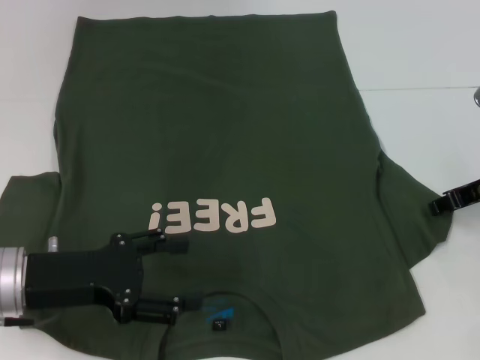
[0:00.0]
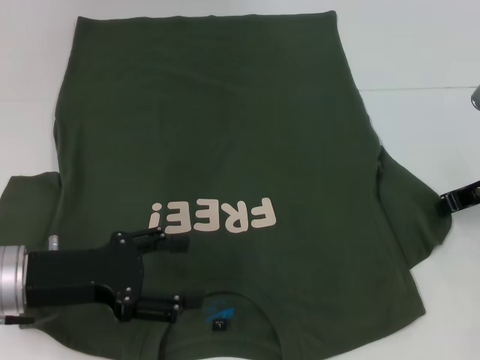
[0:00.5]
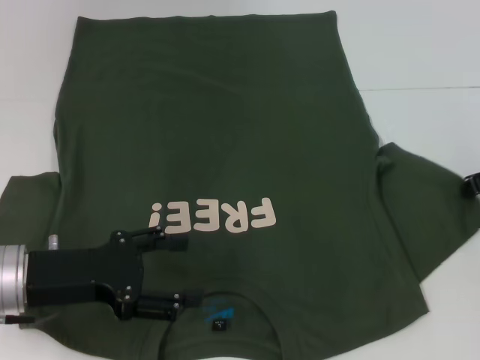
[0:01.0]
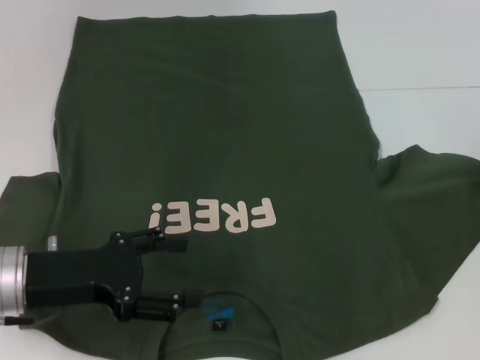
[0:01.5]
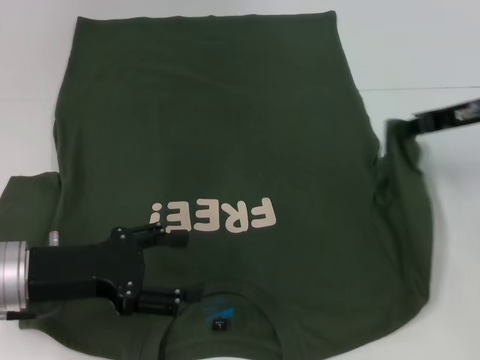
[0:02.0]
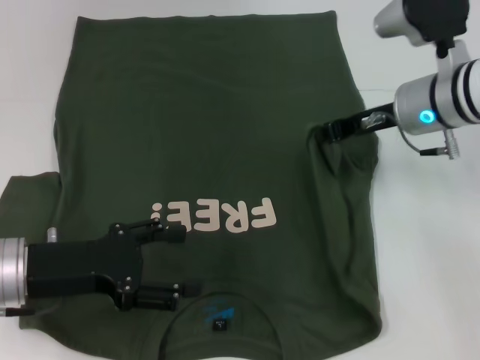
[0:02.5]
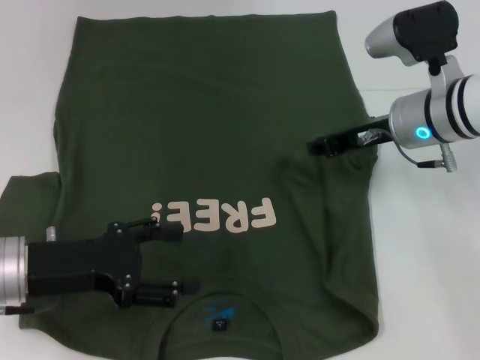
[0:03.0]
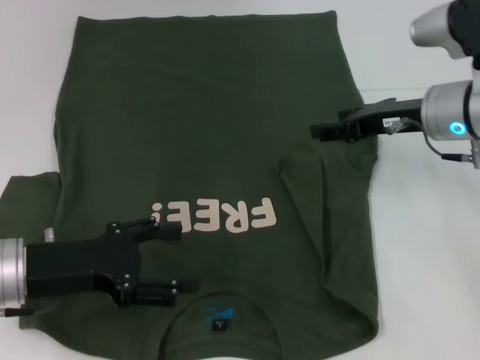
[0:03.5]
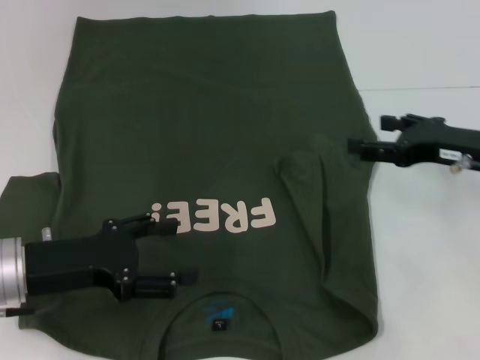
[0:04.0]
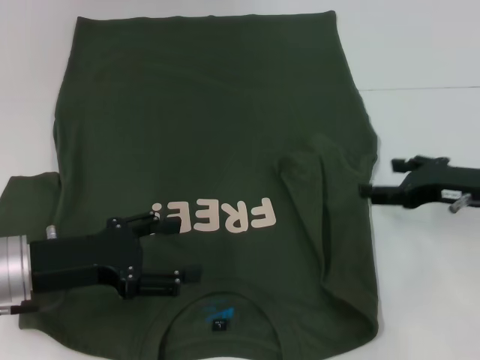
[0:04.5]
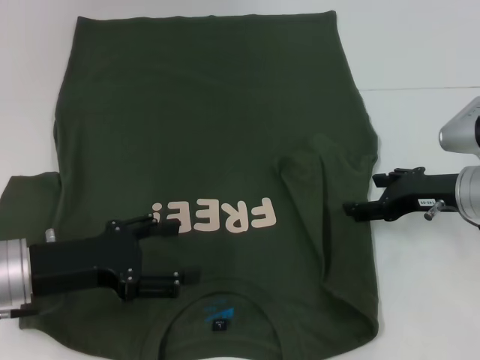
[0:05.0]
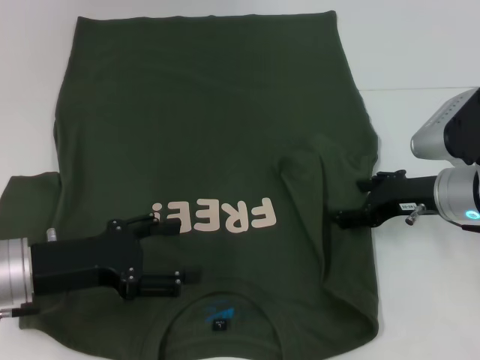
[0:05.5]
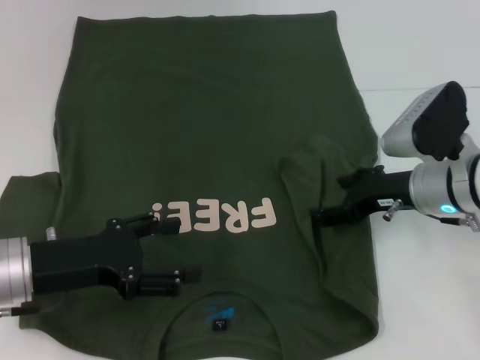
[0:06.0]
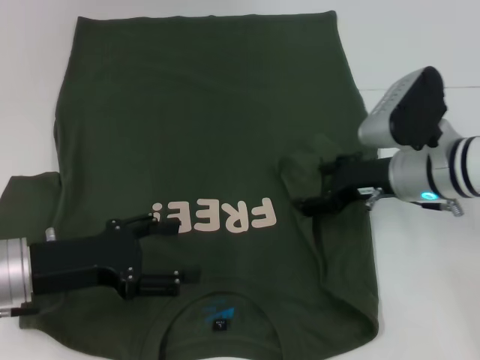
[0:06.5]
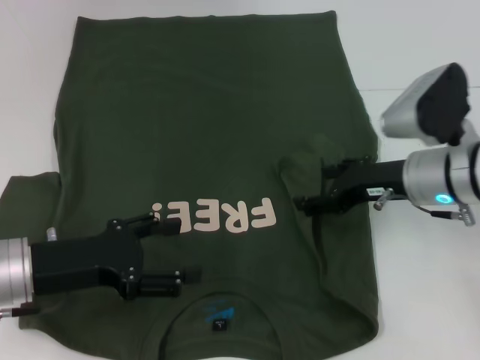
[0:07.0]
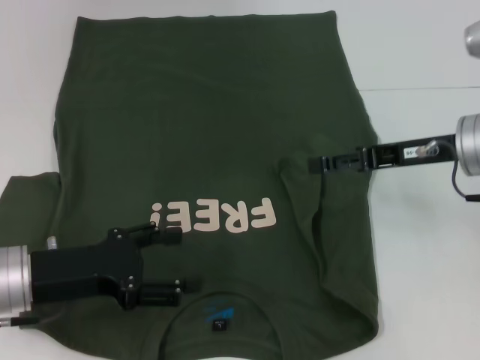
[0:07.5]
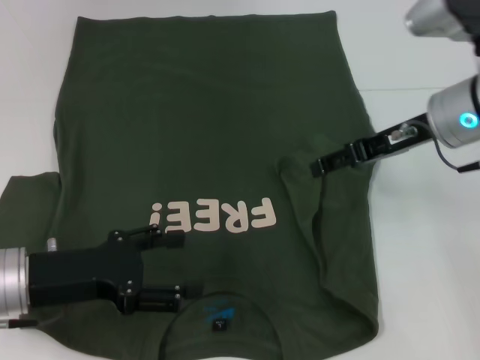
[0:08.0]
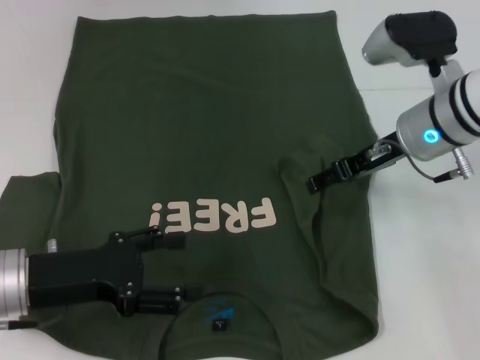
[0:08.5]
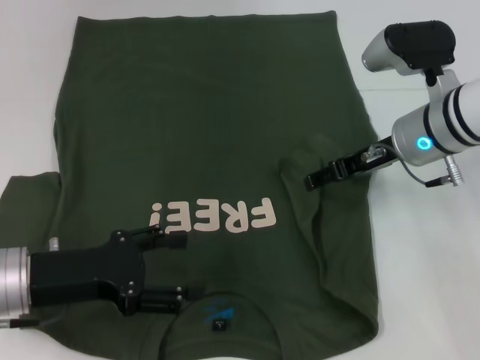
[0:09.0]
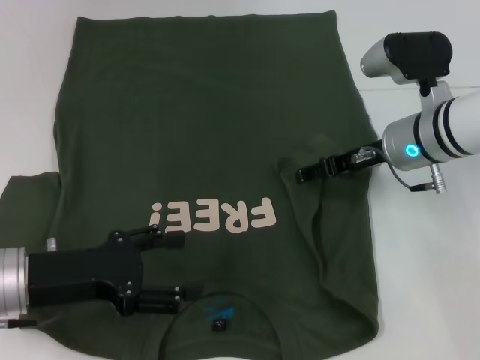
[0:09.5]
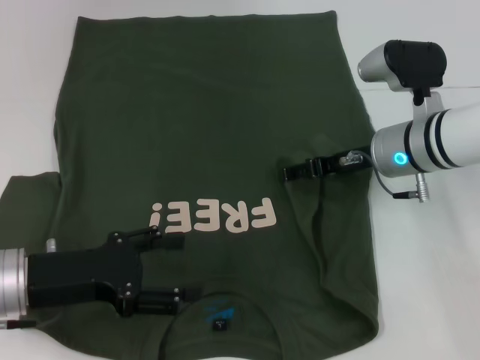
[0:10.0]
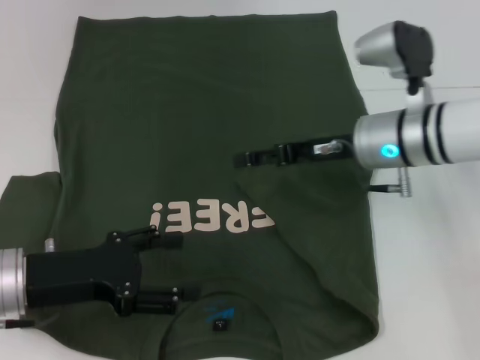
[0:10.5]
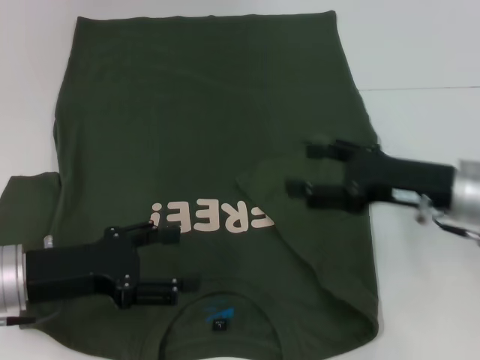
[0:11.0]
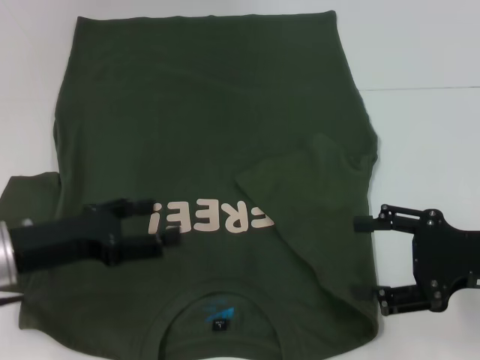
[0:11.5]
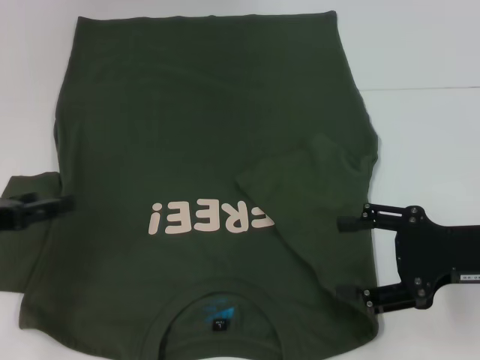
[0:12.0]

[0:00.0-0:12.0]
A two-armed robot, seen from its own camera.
Step, 0:00.0 to 0:10.5: Fold the bottom right sleeve with your right hand.
0:00.0 to 0:02.0: The right gripper is displaced upward by some 5 cm, and closes up.
0:02.0 to 0:04.0: The right gripper shifts roughly 10 cm backward and downward, goes to the left and returns, about 10 cm each way, and opens up.
0:04.0 to 0:06.0: The right gripper shifts about 5 cm to the left.
0:06.0 to 0:08.0: The right gripper moves upward, about 10 cm.
0:08.0 to 0:10.0: The right gripper moves downward, roughly 10 cm.
0:10.0 to 0:12.0: The right gripper goes about 15 cm backward and to the right, while the left gripper goes approximately 10 cm to the left.

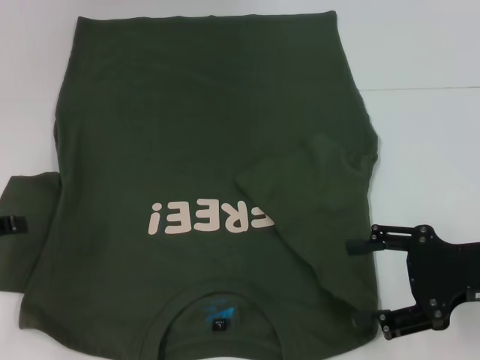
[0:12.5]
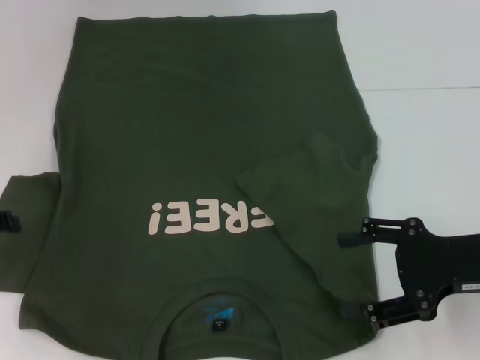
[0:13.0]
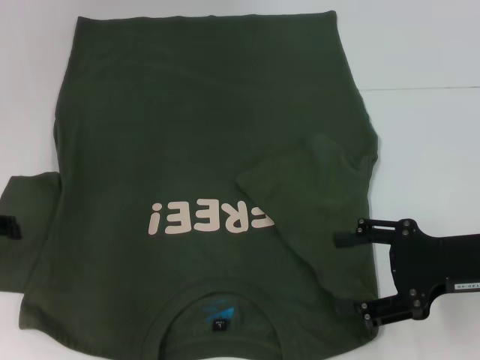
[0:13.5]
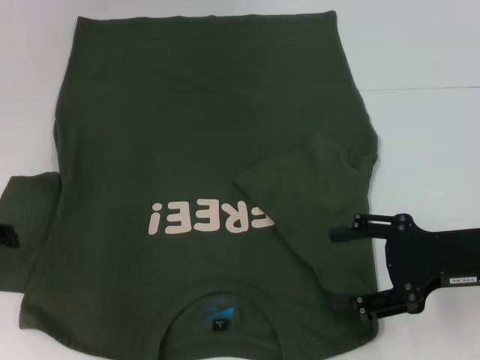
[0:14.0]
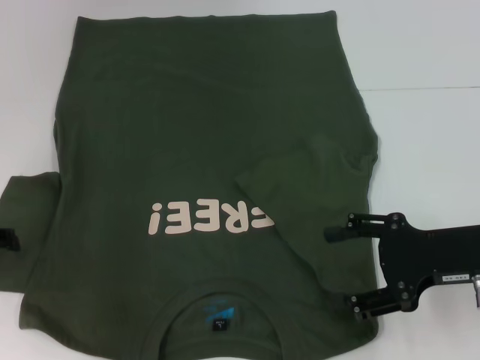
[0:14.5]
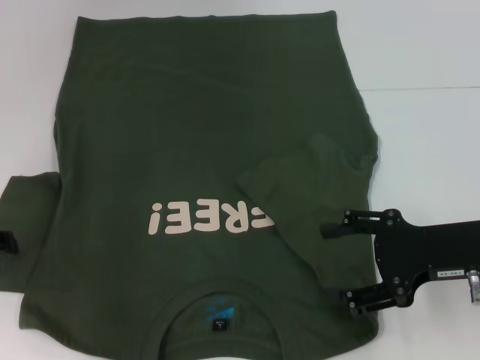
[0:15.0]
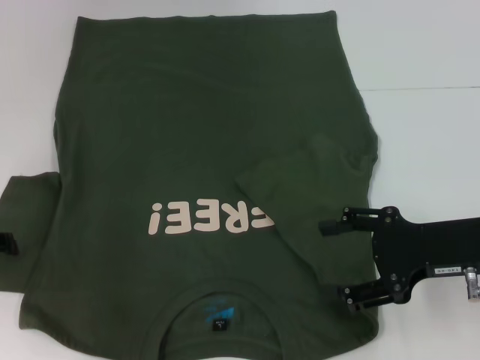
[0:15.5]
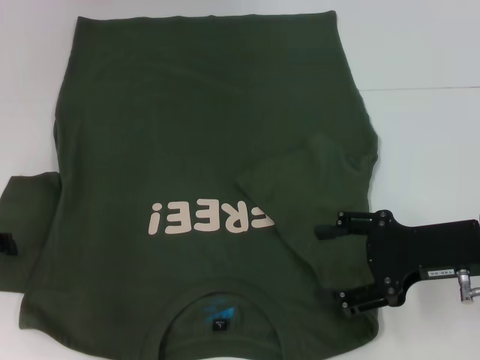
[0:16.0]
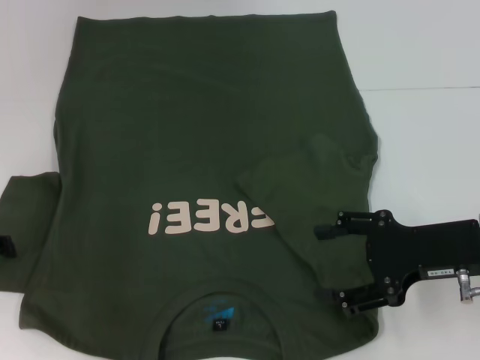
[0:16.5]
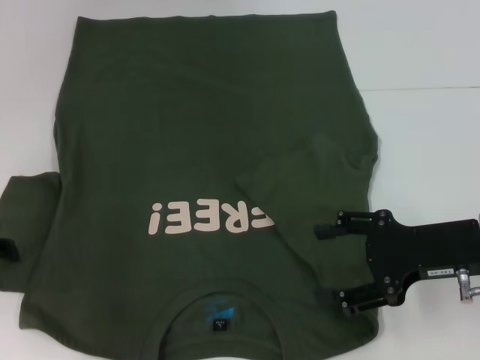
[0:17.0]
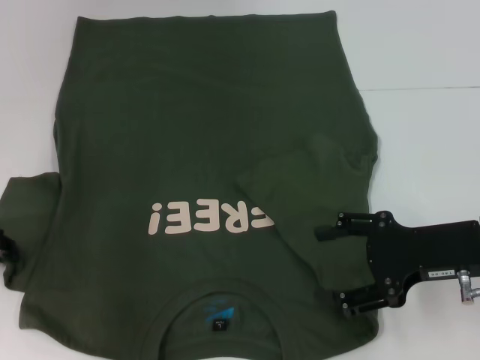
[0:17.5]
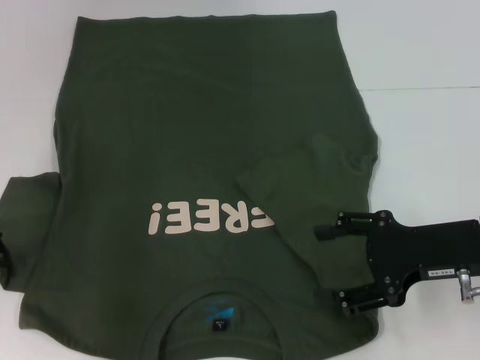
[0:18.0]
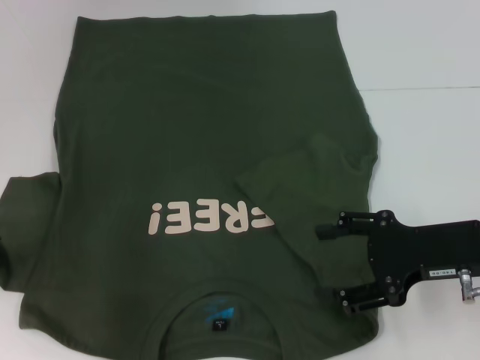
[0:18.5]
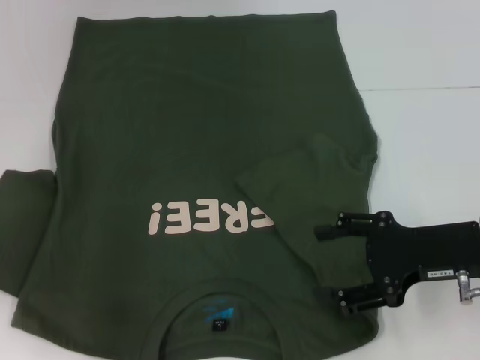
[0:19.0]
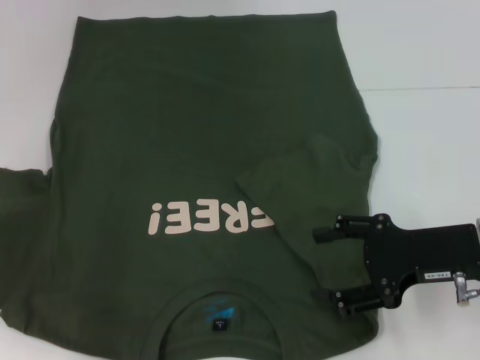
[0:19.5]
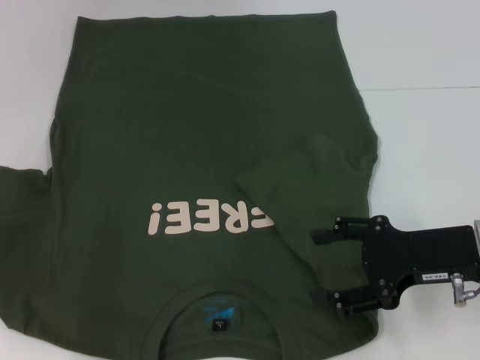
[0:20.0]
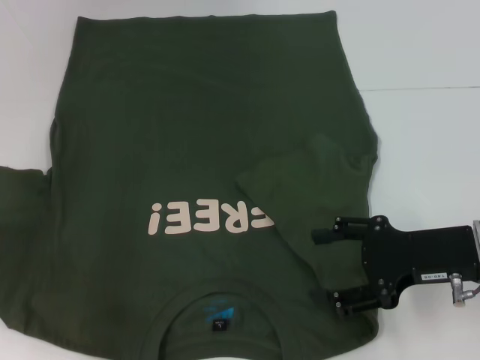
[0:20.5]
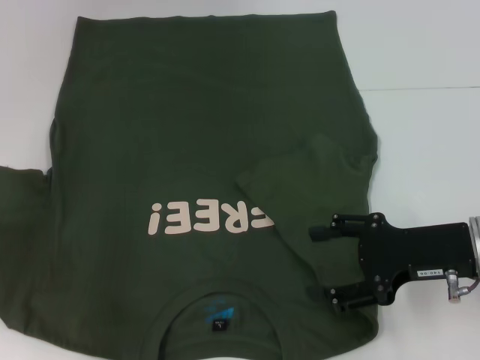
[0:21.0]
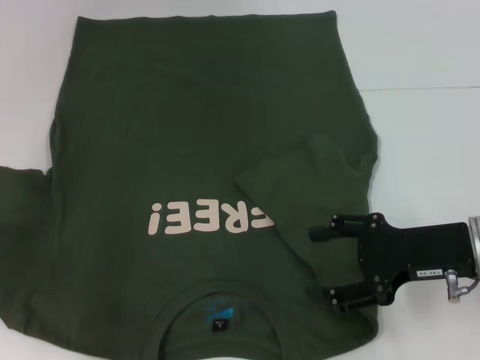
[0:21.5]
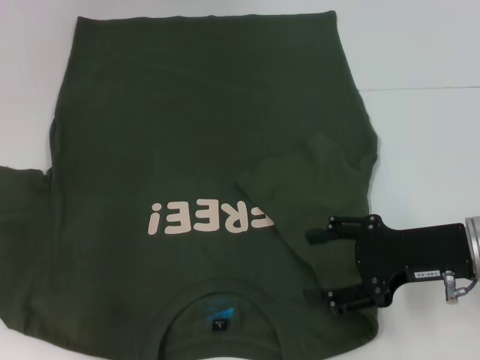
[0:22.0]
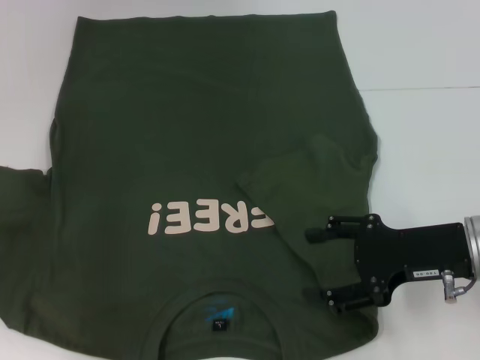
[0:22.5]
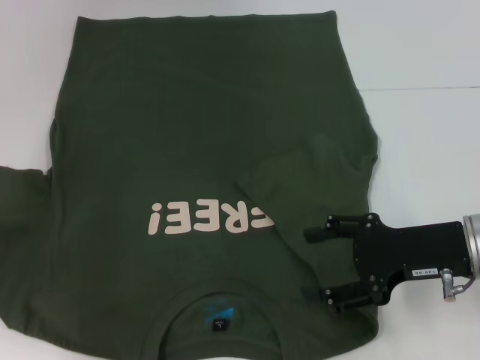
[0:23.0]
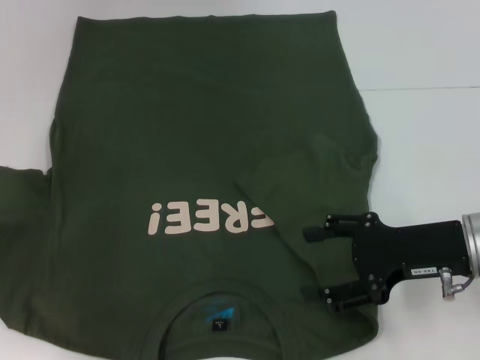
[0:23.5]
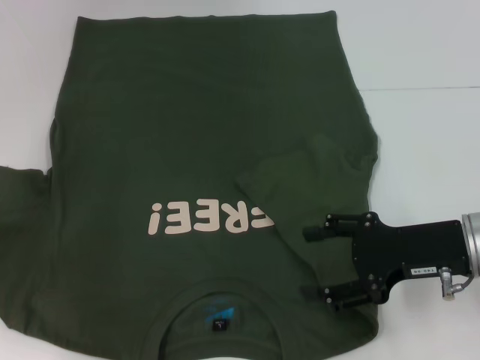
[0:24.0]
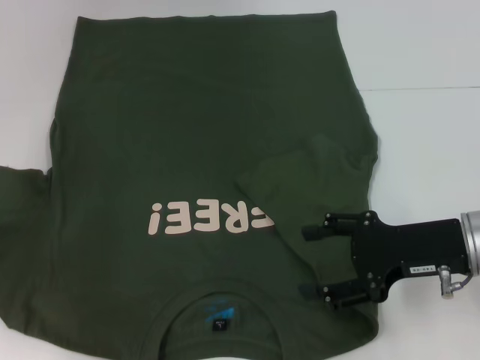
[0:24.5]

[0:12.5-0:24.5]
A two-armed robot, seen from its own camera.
0:14.5 to 0:16.5: Both grippers stay put.
0:18.5 to 0:20.5: The grippers make only small movements.

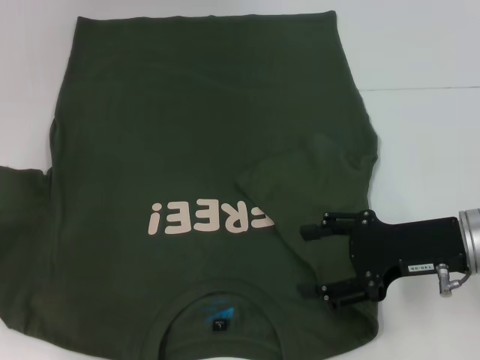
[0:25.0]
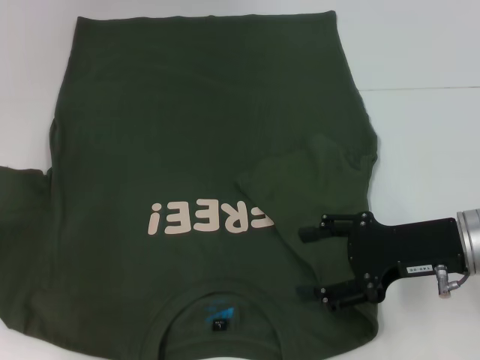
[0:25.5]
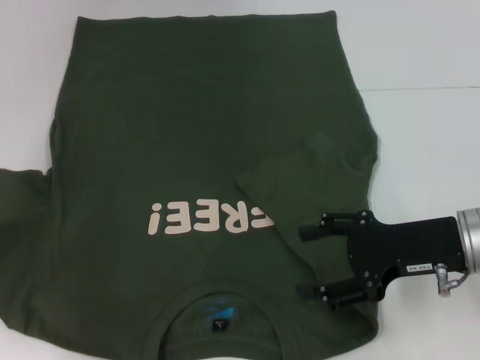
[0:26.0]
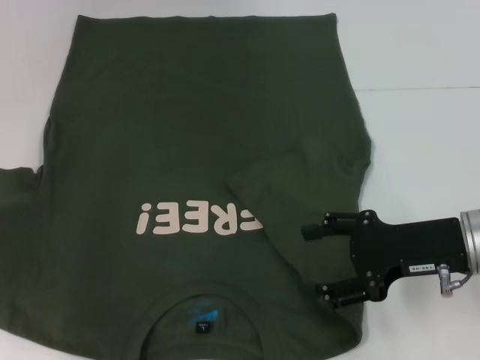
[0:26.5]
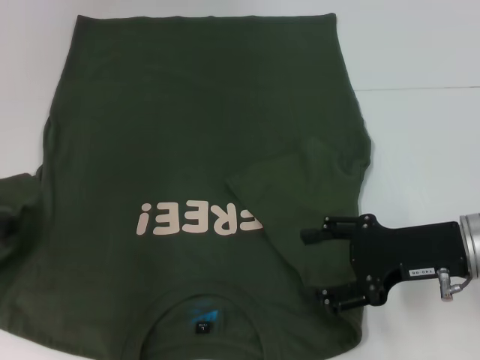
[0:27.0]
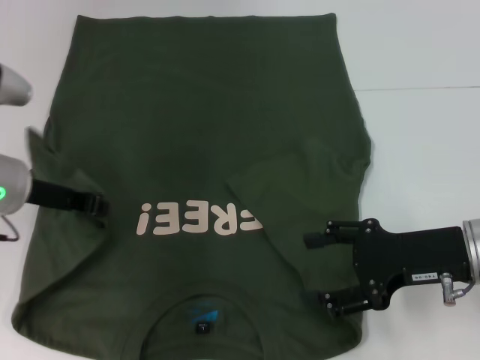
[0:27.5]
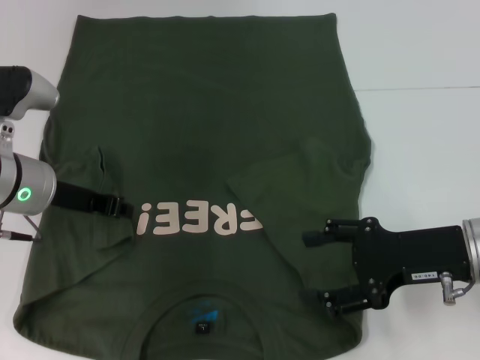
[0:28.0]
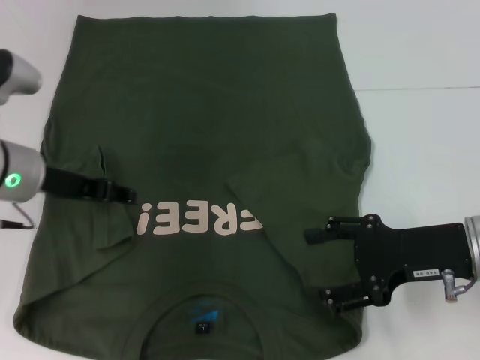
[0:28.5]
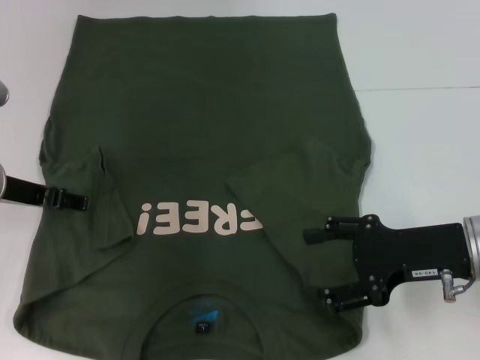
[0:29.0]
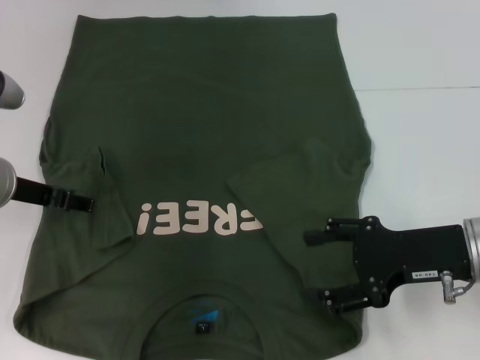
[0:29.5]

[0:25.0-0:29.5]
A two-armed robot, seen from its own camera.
Step, 0:25.0 to 0:28.0: Fold the bottom left sleeve with your left hand.
0:25.0 to 0:27.0: The left gripper is displaced to the right by approximately 5 cm, and closes.
0:27.0 to 0:29.5: The left gripper moves to the right, about 5 cm, and opens its fingers.
